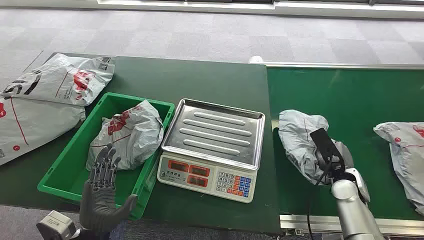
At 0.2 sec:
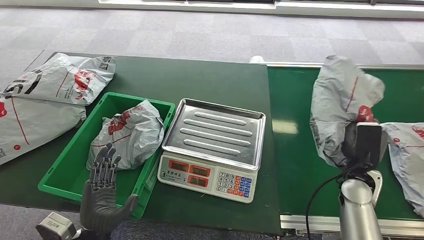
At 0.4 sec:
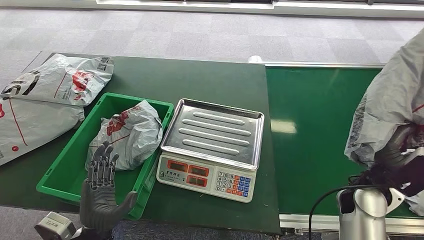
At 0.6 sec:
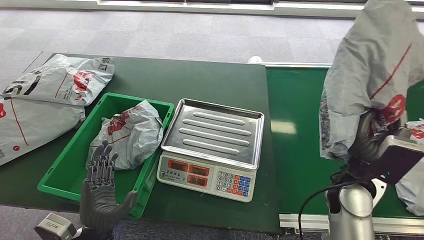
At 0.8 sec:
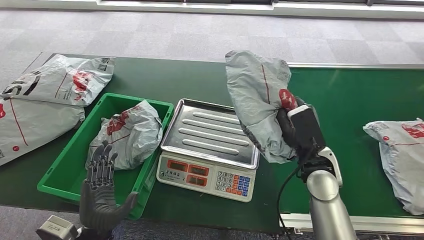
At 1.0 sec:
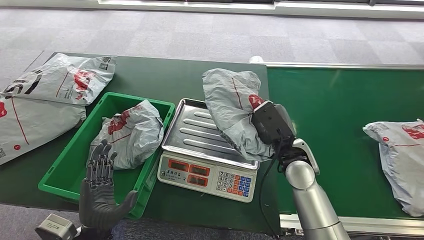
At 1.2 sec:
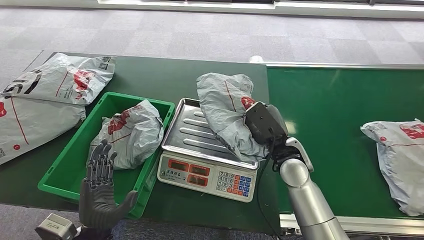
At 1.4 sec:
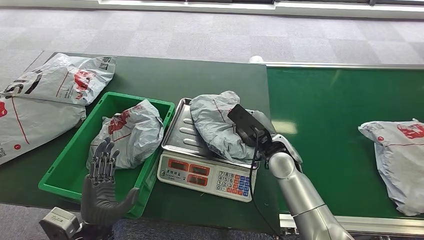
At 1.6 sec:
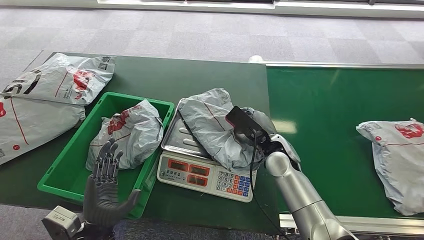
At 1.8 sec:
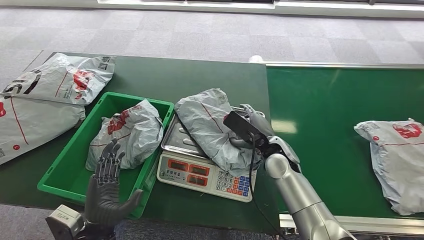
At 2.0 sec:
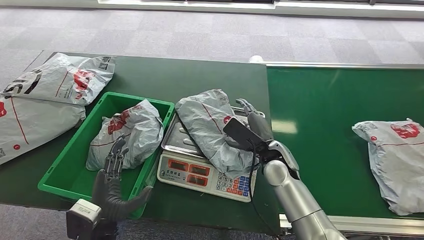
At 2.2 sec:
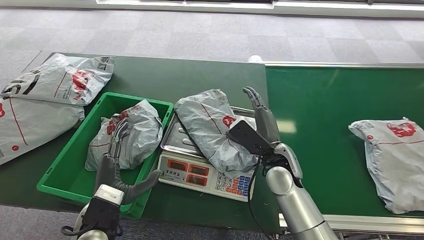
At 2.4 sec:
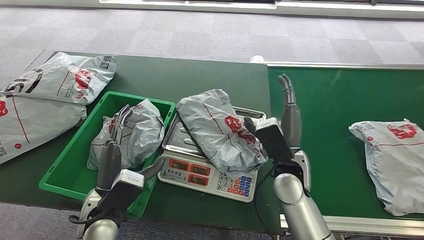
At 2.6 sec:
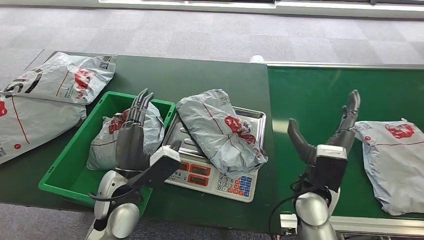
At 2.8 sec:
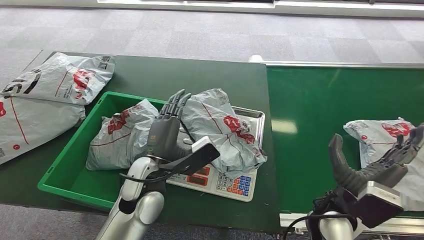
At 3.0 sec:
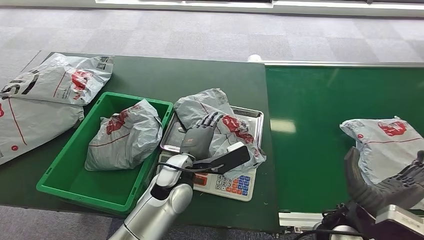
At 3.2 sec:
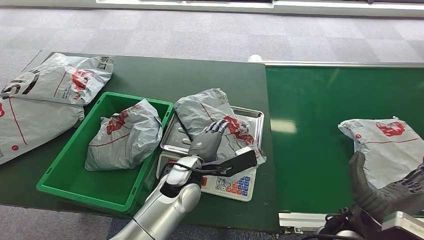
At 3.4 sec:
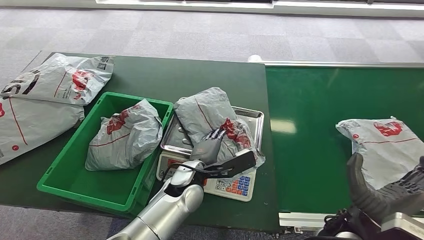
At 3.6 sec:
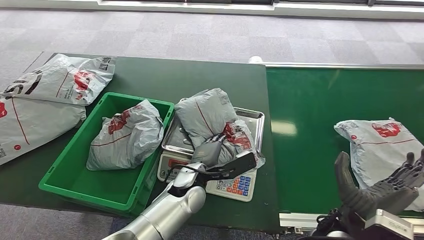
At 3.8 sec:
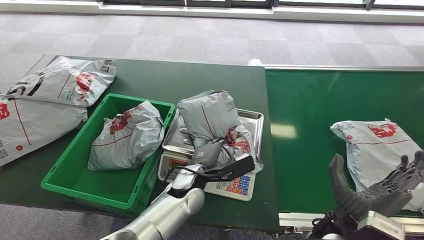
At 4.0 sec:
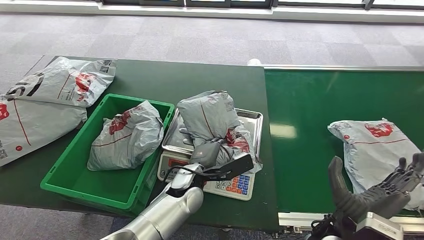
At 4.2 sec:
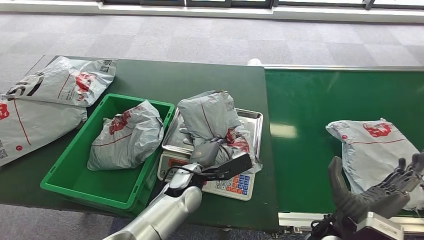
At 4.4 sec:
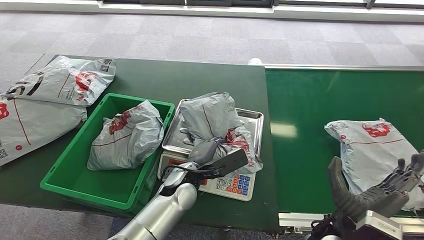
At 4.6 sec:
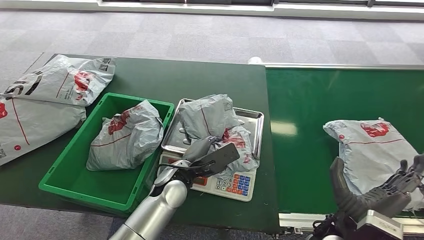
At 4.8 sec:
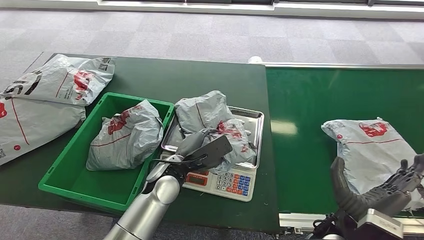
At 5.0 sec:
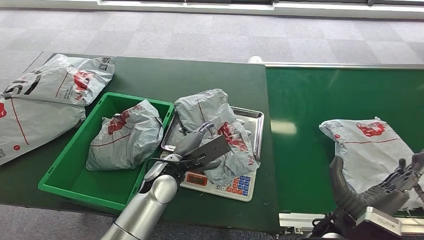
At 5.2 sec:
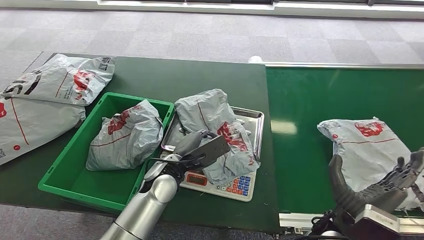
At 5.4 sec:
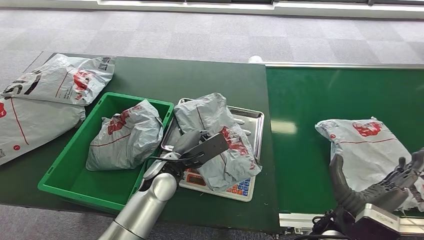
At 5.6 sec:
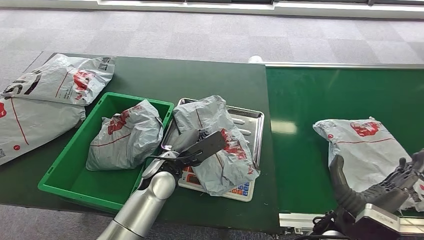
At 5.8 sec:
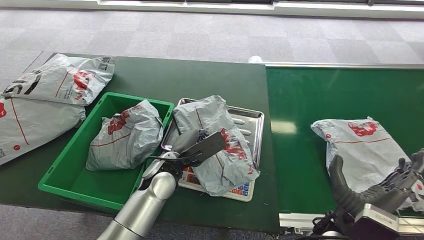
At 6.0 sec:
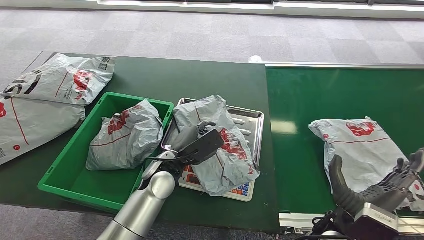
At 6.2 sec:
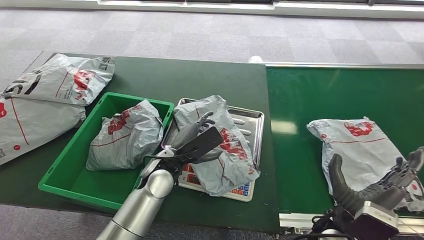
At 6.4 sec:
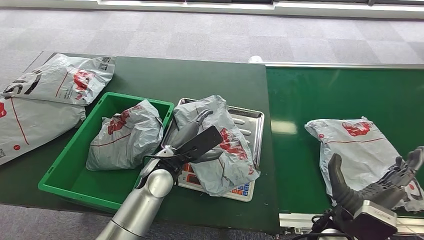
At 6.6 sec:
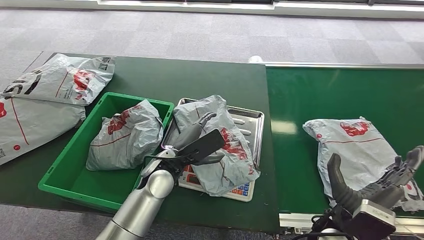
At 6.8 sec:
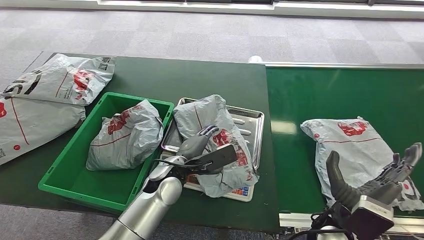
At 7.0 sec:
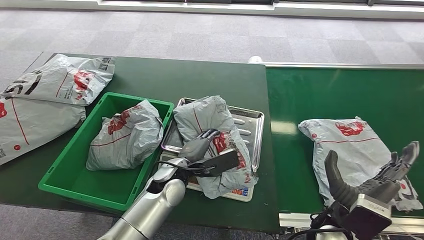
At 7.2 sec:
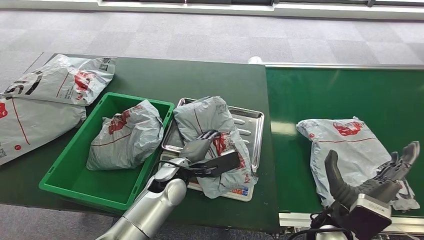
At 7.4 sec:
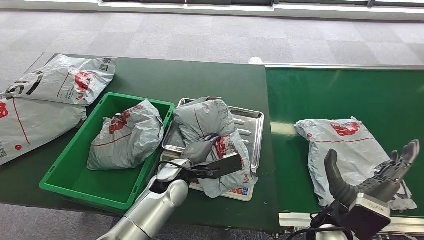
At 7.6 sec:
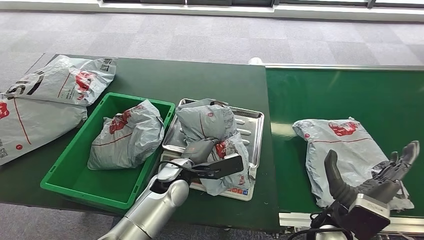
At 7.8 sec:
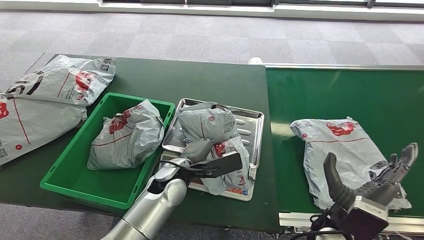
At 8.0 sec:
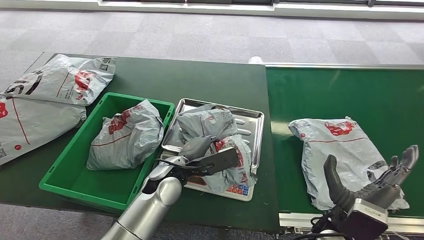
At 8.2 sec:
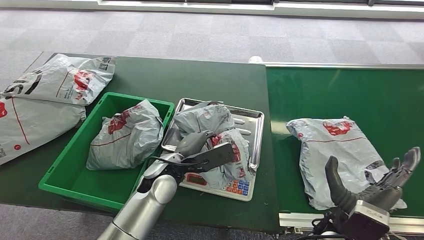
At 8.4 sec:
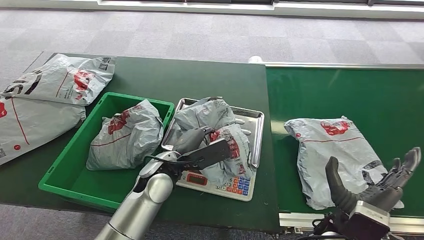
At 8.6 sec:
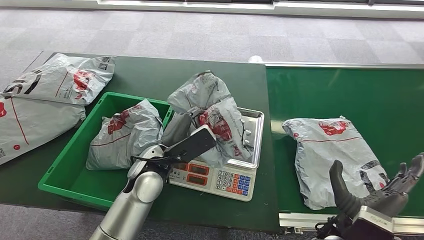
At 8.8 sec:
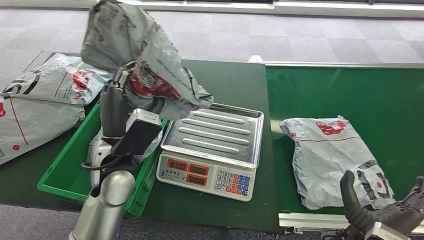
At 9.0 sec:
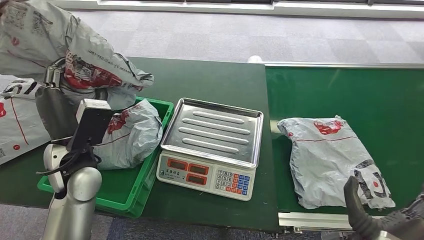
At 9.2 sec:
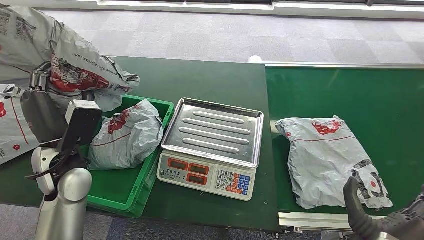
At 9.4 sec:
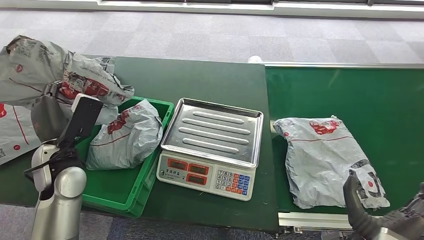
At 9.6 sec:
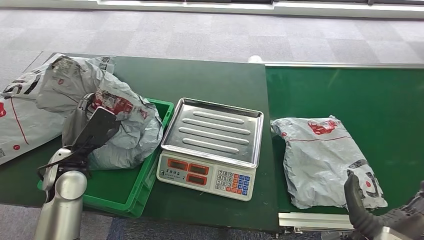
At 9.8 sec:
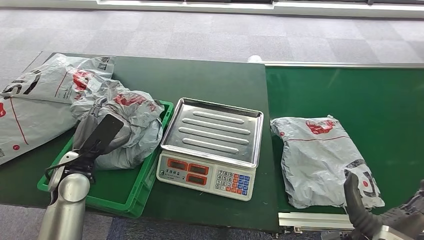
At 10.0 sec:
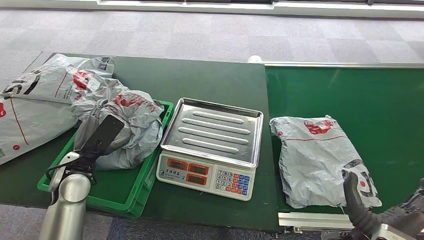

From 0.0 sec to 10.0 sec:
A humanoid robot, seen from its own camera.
Step, from 0.0 sec to 0.8 sec: Pick up the package from the conveyor belt.
Step, from 1.0 sec to 2.8 sec: Place the package onto the inbound machine.
Step, from 6.8 sec to 9.0 sec: Pick up the package from the inbound machine.
Step, from 9.2 sec to 10.0 sec: Place the package into the parcel locker.

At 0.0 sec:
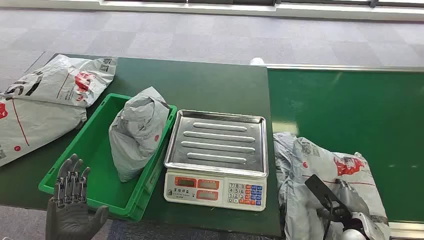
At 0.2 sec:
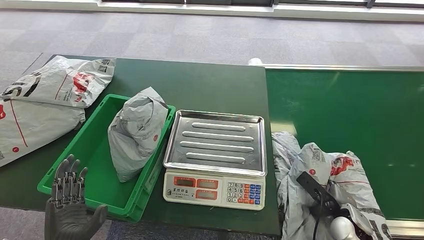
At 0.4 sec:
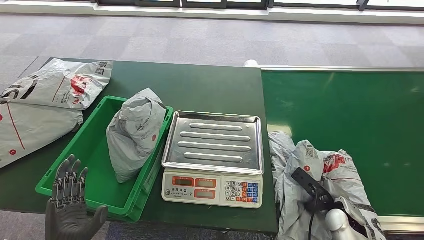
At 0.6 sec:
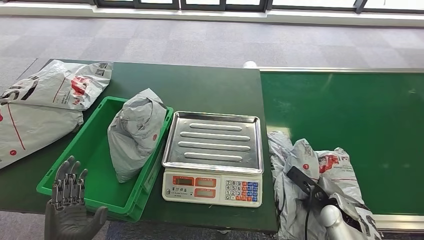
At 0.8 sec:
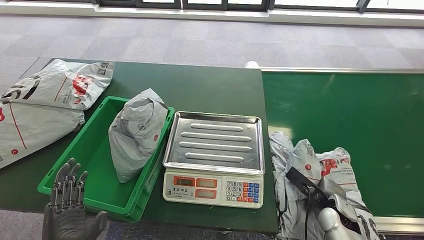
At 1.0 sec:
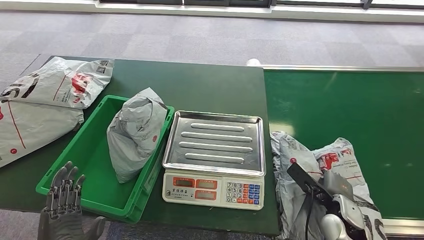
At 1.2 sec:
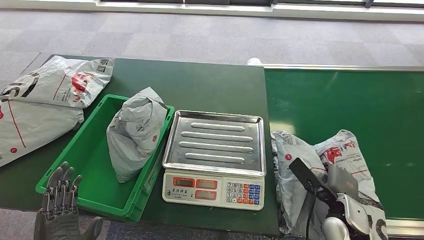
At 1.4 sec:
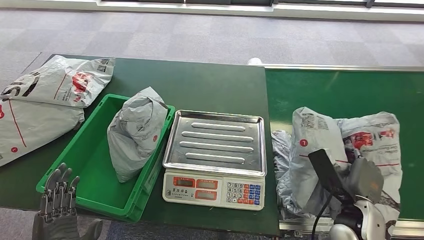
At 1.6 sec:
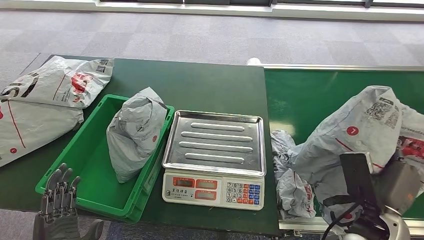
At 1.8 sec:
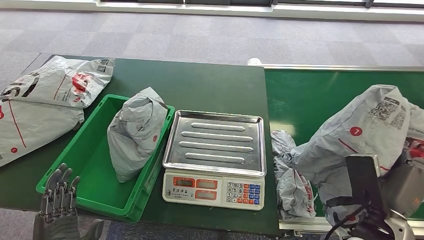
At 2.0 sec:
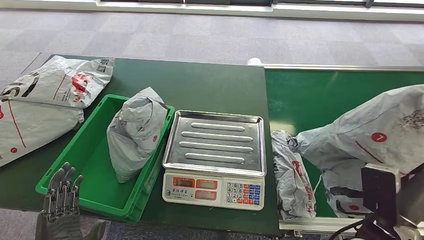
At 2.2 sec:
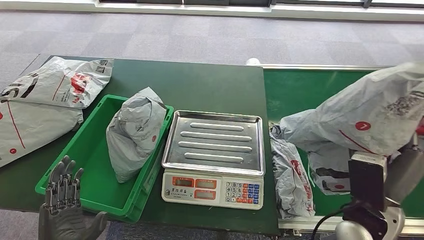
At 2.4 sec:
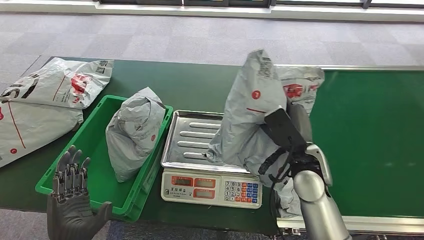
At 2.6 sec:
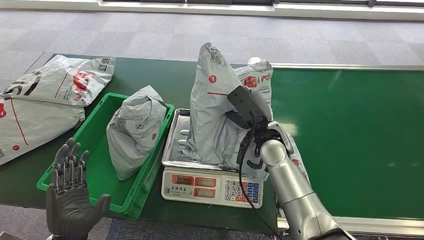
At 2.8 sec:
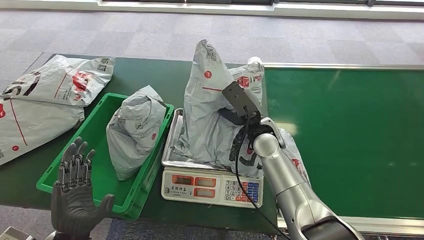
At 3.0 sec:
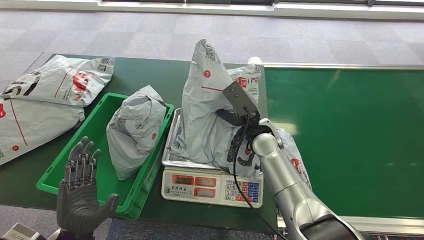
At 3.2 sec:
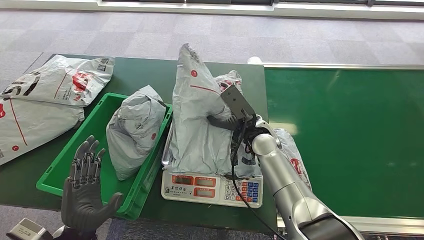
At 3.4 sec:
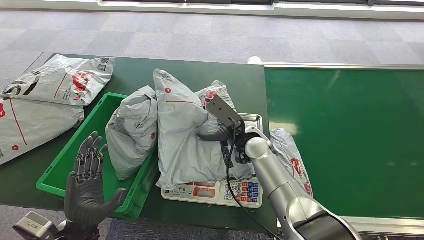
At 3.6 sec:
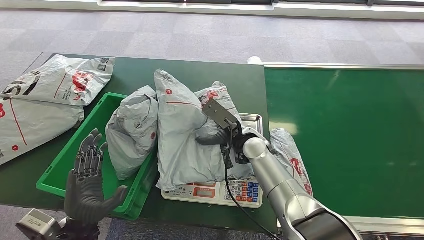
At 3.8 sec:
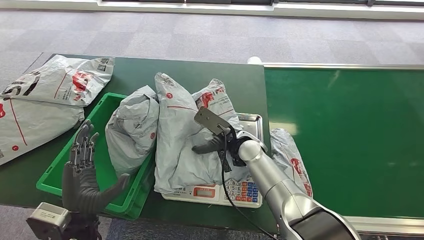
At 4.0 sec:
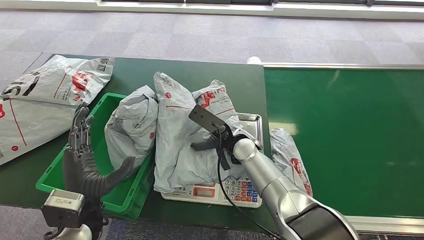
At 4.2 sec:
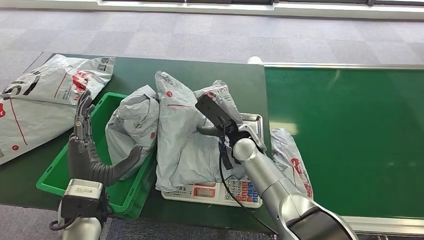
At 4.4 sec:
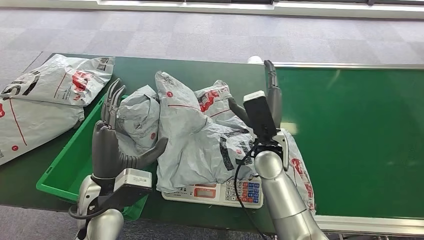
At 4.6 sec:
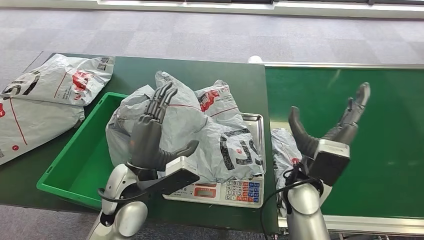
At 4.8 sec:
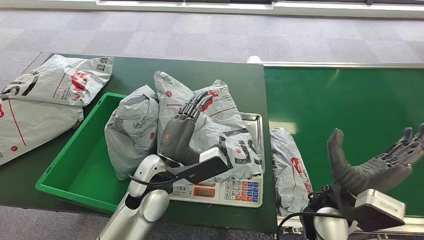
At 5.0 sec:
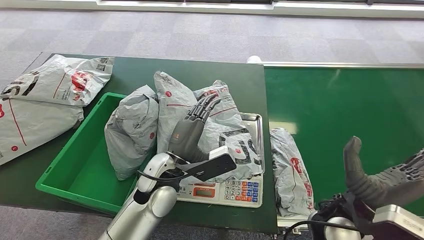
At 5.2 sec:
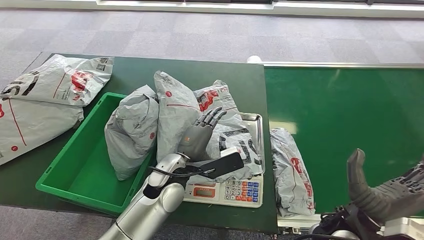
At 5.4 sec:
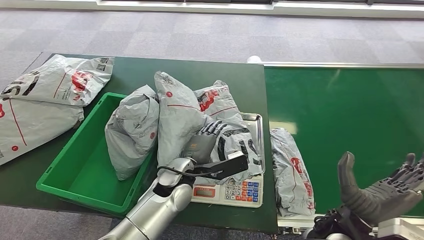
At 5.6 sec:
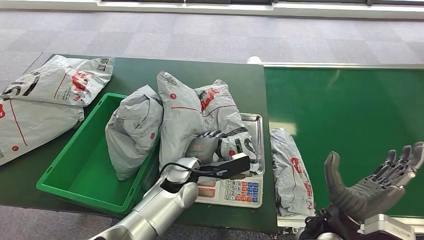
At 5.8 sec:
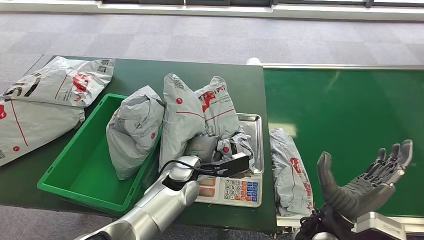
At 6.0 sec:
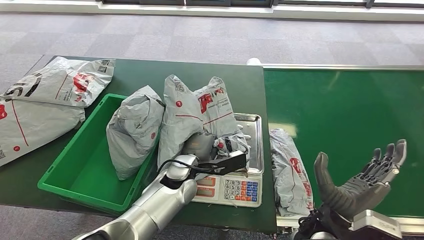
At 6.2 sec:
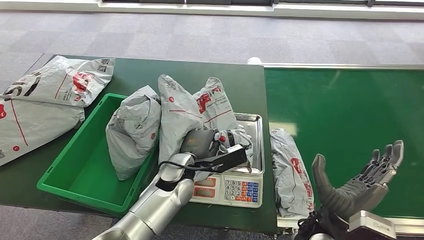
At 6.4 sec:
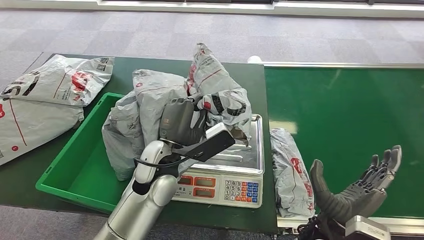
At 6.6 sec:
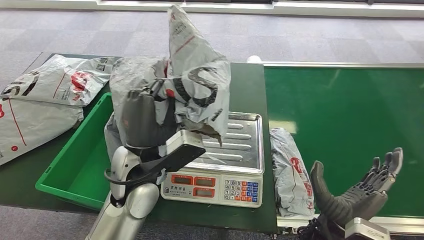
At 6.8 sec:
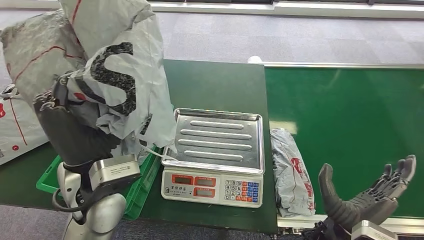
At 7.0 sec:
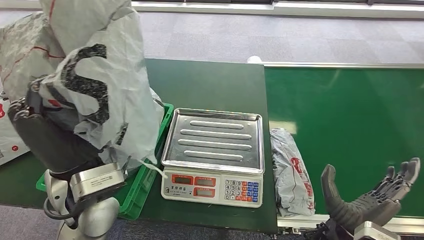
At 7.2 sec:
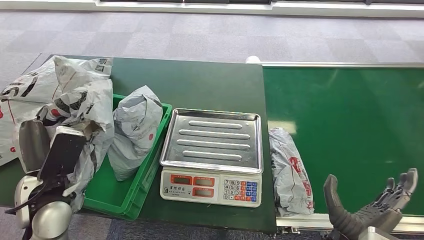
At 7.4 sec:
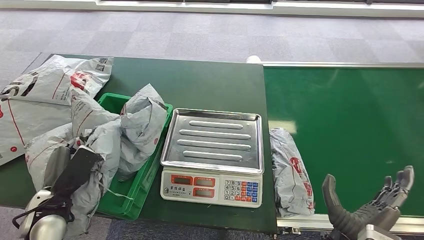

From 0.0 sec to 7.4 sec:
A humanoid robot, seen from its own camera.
Step, from 0.0 sec to 1.6 sec: Pick up the package from the conveyor belt.
Step, from 2.2 sec to 4.6 sec: Place the package onto the inbound machine.
Step, from 5.2 sec to 6.4 sec: Pick up the package from the inbound machine.
